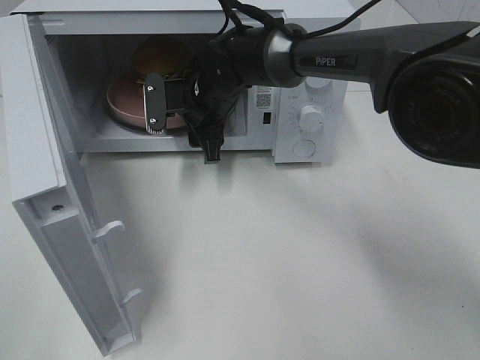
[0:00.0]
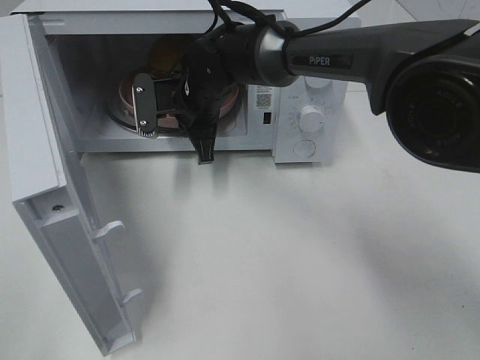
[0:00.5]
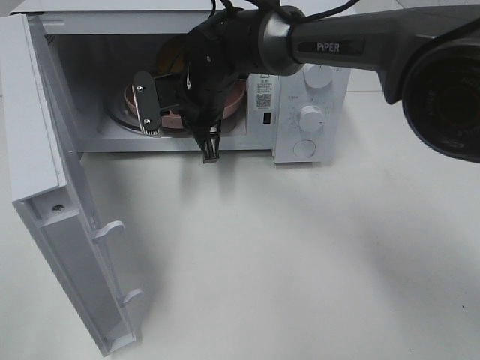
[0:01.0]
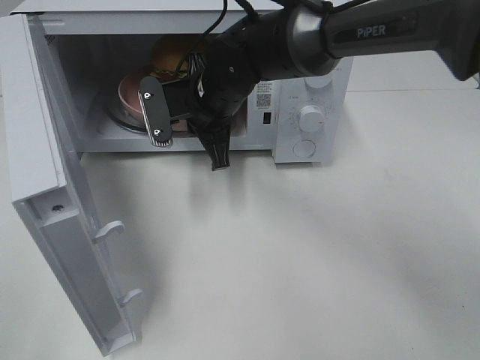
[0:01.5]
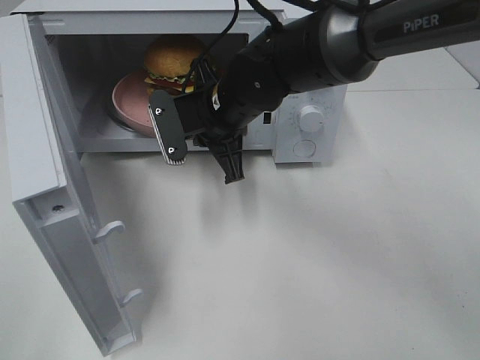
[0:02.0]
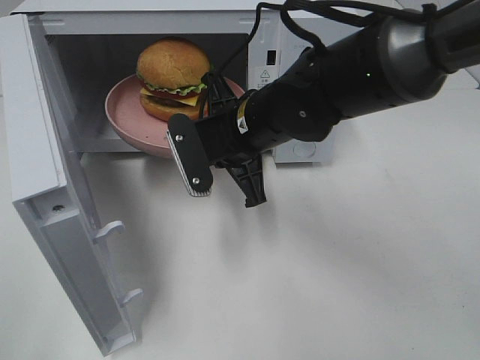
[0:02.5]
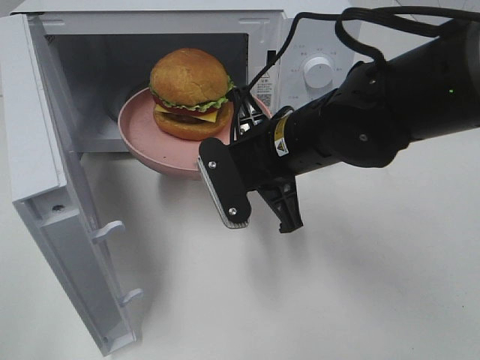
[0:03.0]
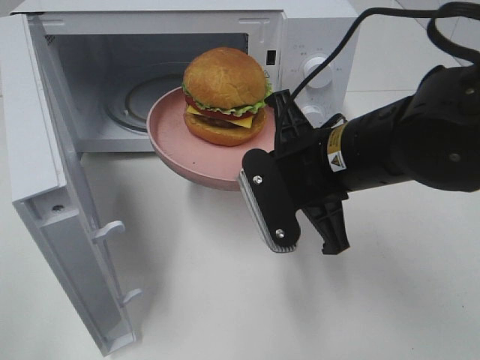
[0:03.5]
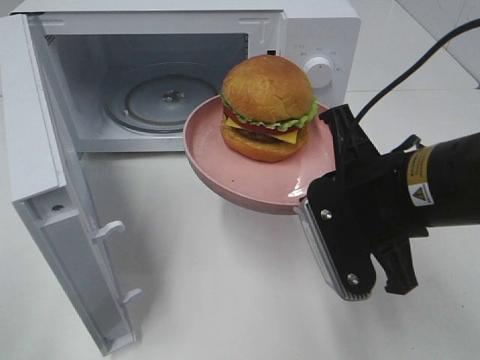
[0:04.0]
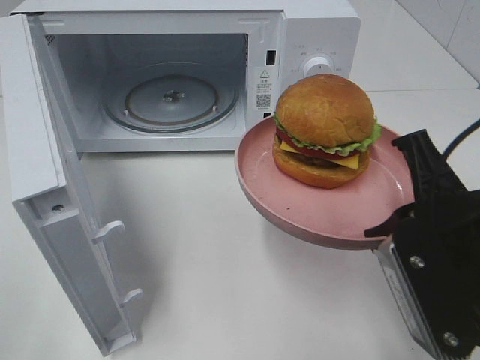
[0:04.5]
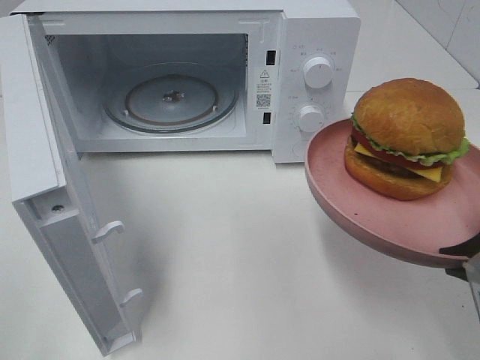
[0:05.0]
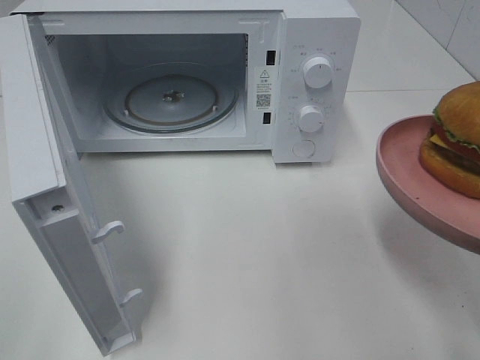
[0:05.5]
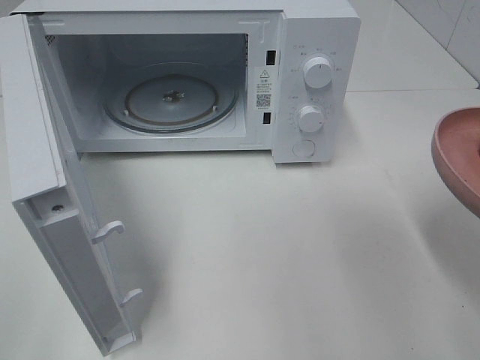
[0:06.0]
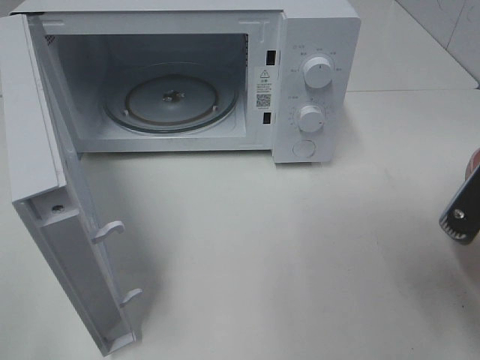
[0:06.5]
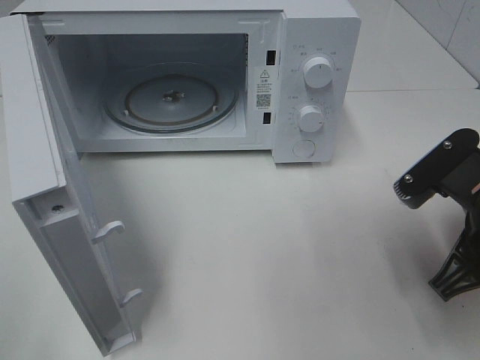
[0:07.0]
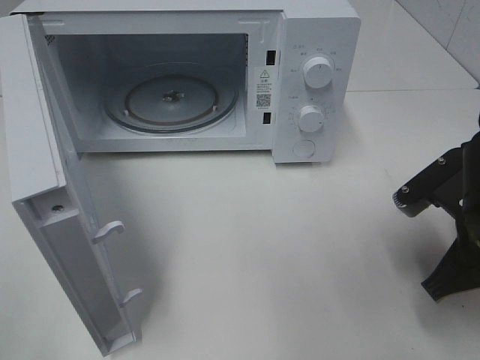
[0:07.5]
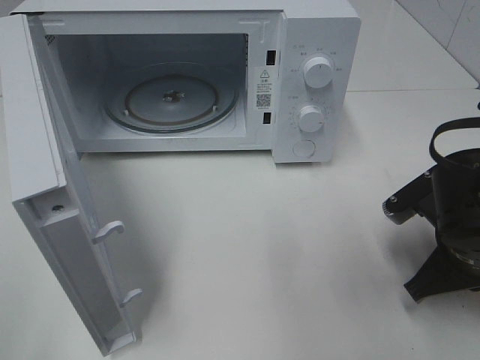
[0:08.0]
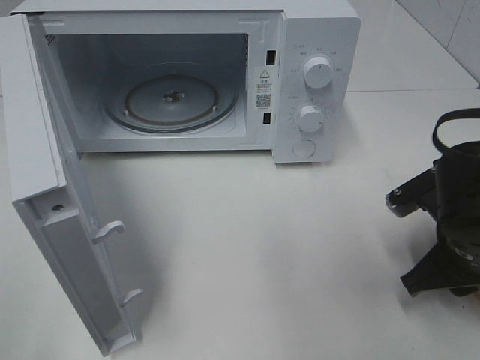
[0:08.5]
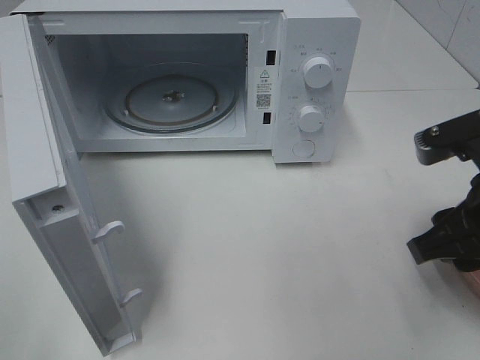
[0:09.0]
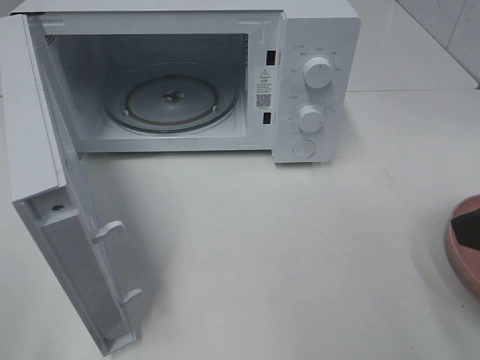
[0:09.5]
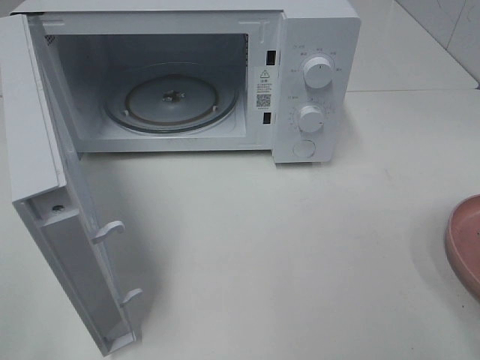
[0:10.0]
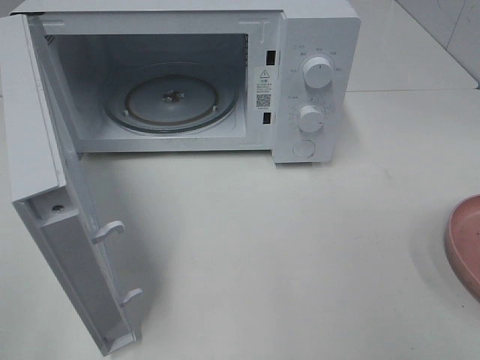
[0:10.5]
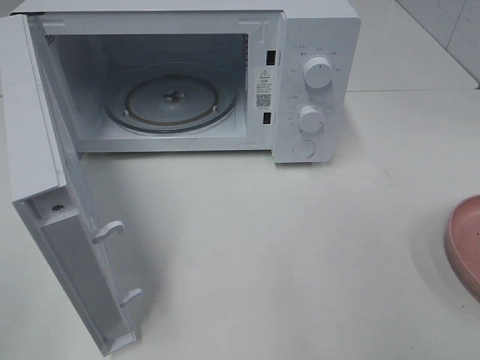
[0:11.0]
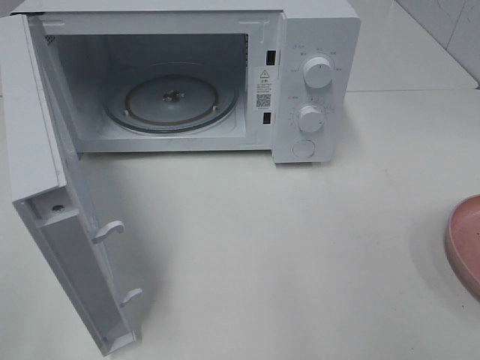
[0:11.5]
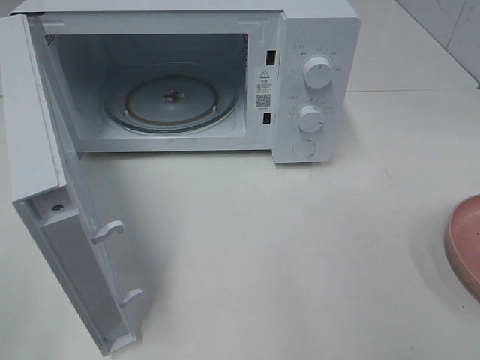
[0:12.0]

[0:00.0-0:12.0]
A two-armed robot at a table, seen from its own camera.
Task of the whole recording: Heat the burger.
Step, 0:00.5 to 0:08.5: Right hand: place the plate on the table.
0:00.0 to 0:02.0: The right gripper is displaced backward by roughly 10 cm, and closes up.
0:02.0 to 0:04.0: The right gripper is displaced backward and to the right by about 20 cm.
0:04.0 to 0:06.0: The right gripper goes approximately 15 cm to the right and backward.
0:06.0 to 0:08.0: The right gripper heads downward and forward, covering approximately 15 cm.
0:08.0 to 0:10.0: The right gripper goes some 20 cm upward and backward, and opens.

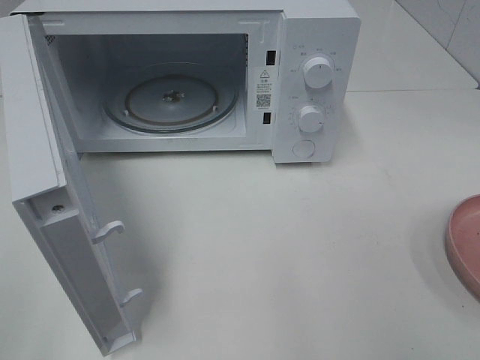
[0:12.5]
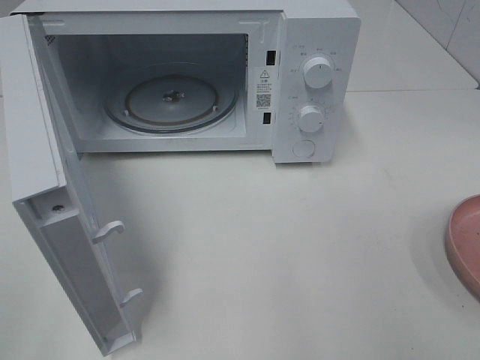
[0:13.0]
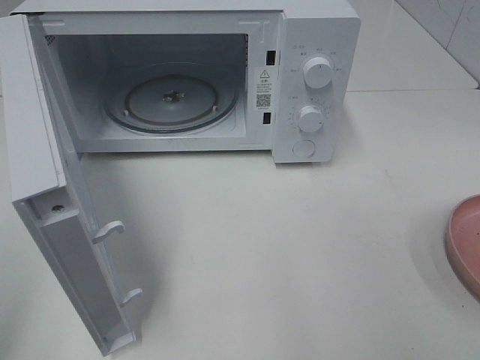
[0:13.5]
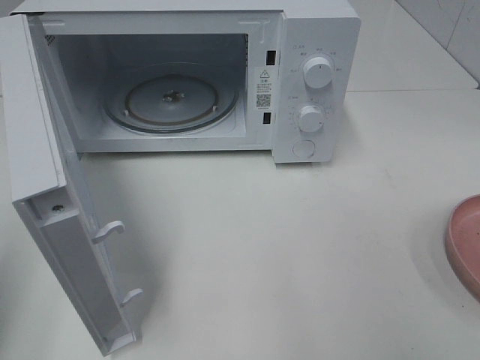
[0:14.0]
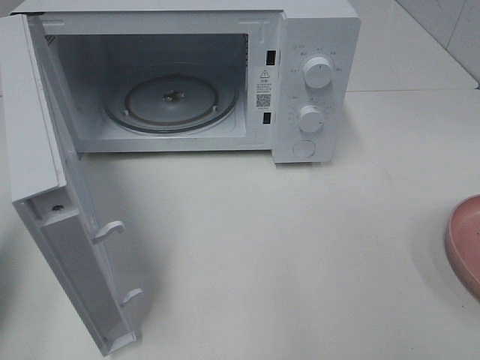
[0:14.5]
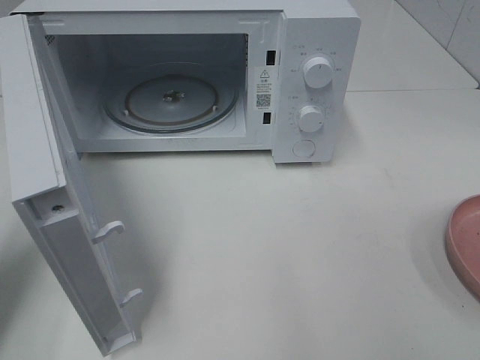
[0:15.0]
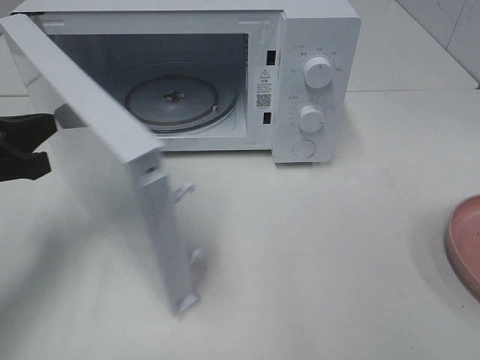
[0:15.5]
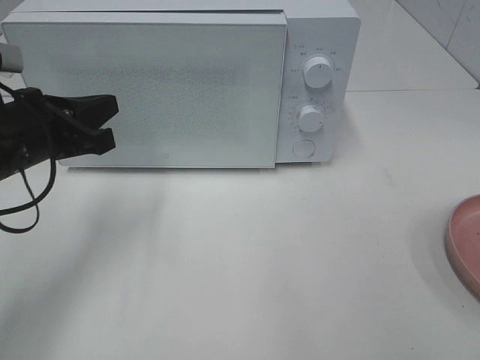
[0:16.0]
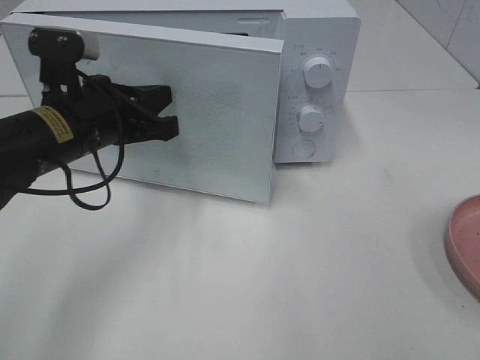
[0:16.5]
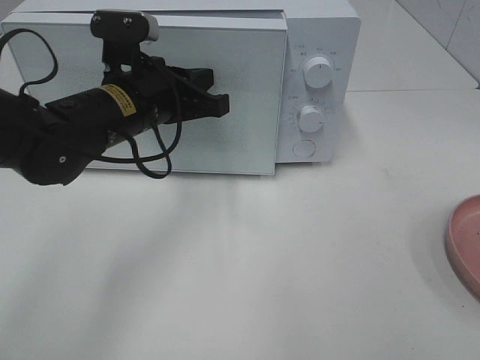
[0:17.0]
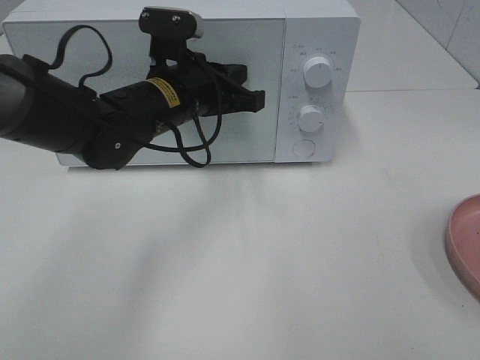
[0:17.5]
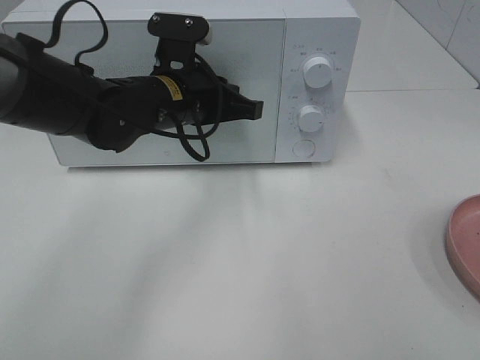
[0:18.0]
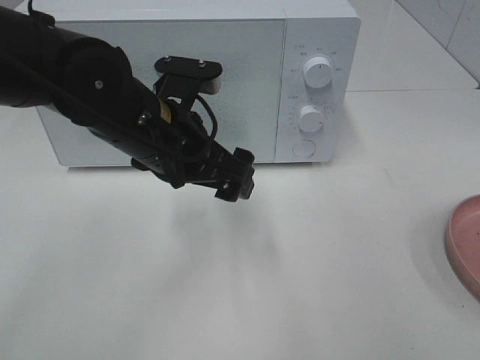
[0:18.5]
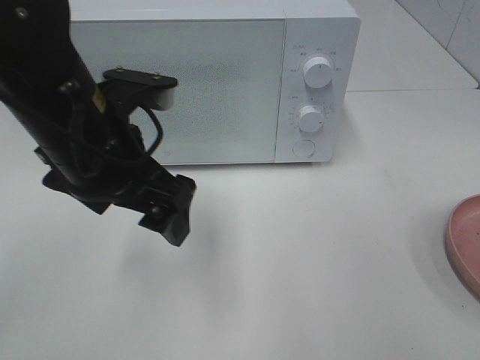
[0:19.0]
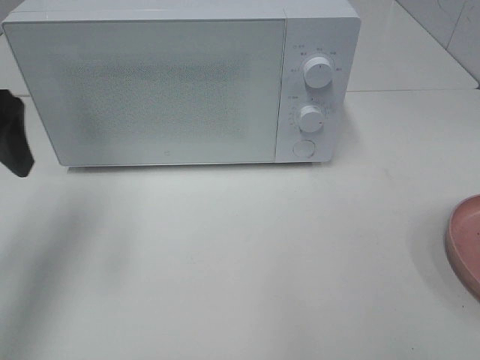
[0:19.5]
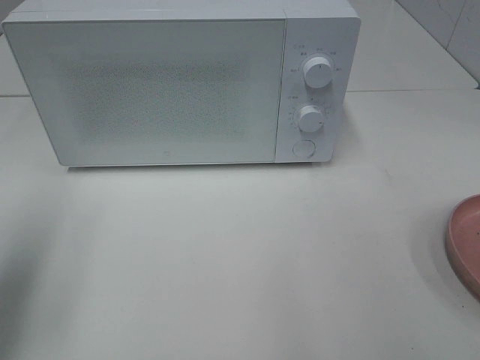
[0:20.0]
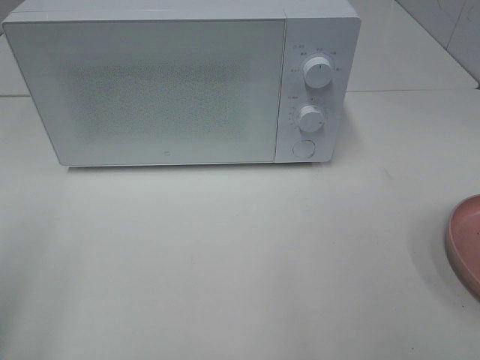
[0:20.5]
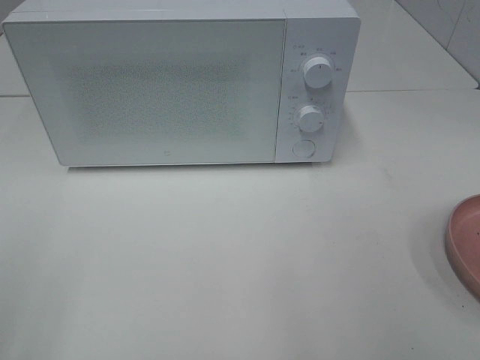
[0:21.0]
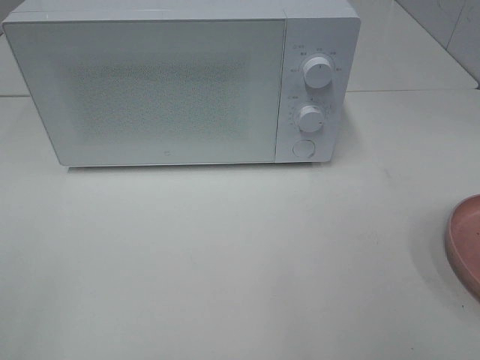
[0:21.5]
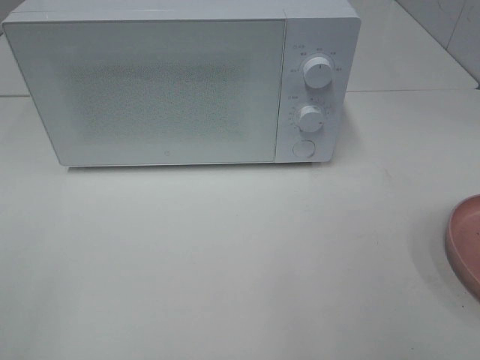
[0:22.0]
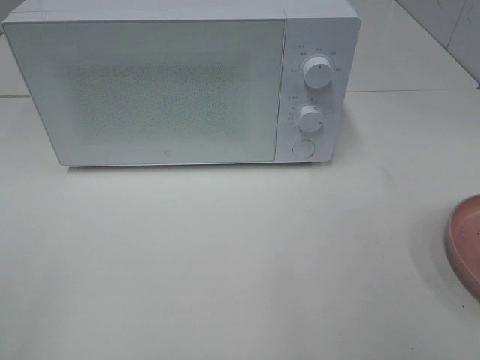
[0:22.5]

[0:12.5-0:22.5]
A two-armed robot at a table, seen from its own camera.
Task of the whole recording: Heat the burger.
Step, 0:12.5 to 0:18.0: Left hand: close the microwave door.
0:12.5 to 0:14.5: The left gripper goes some 15 cm forward, and closes.
0:14.5 to 0:16.5: The left gripper is displaced to the right and forward by about 20 cm.
0:16.5 to 0:18.5: The left gripper is displaced to the right by roughly 10 cm, and opens up.
0:18.5 to 0:20.5: The left gripper is displaced to the left and backward by roughly 30 cm.
